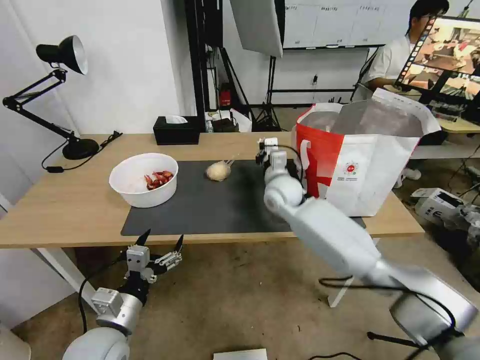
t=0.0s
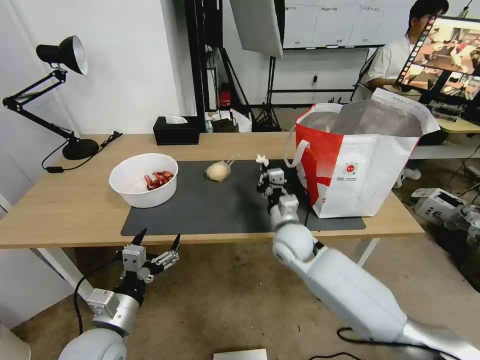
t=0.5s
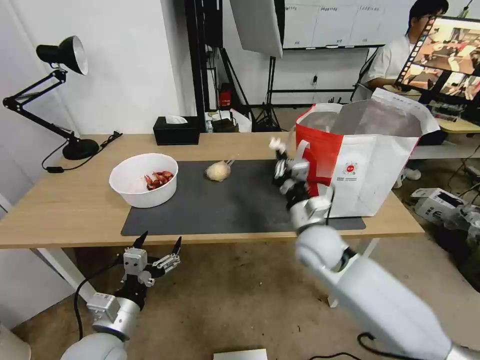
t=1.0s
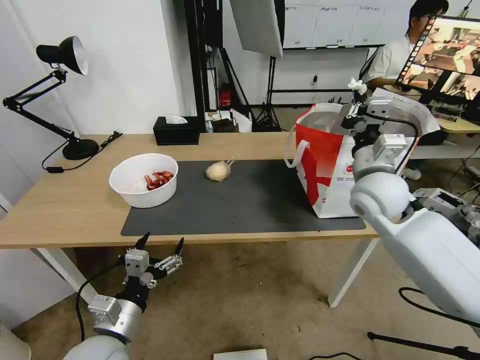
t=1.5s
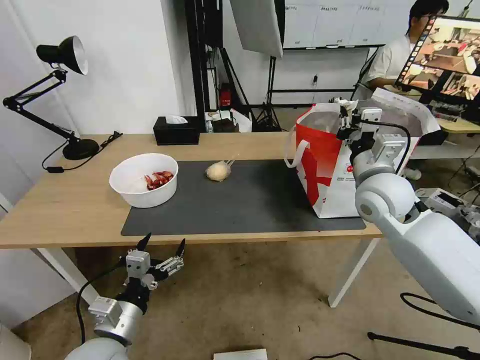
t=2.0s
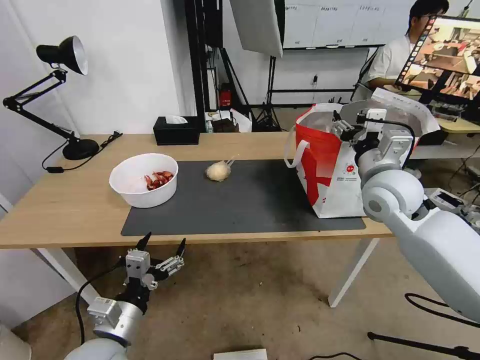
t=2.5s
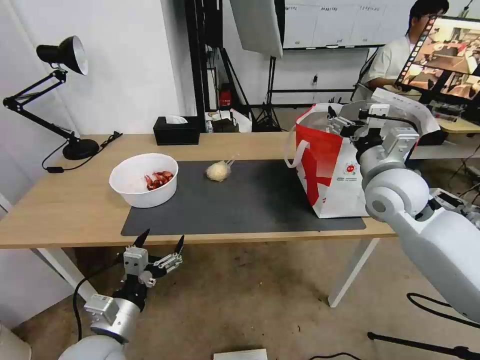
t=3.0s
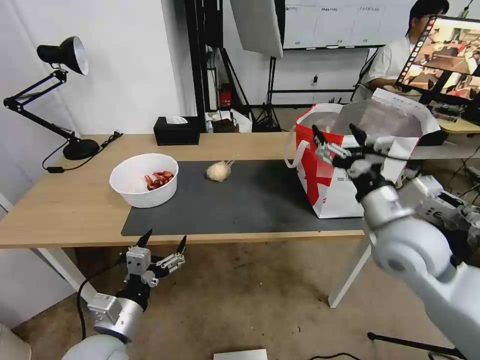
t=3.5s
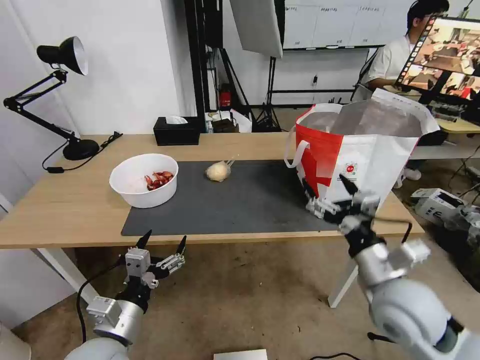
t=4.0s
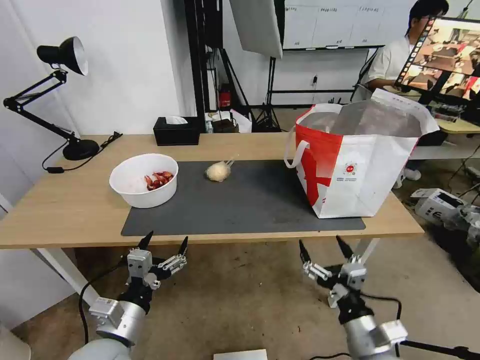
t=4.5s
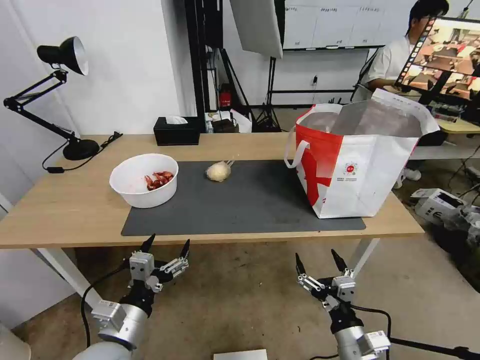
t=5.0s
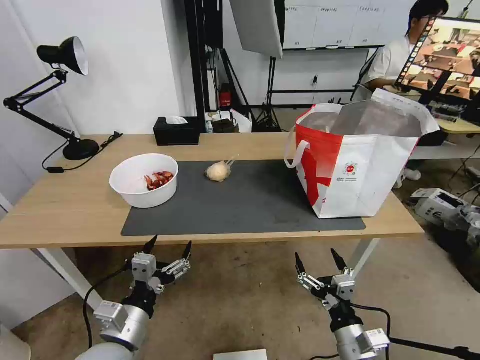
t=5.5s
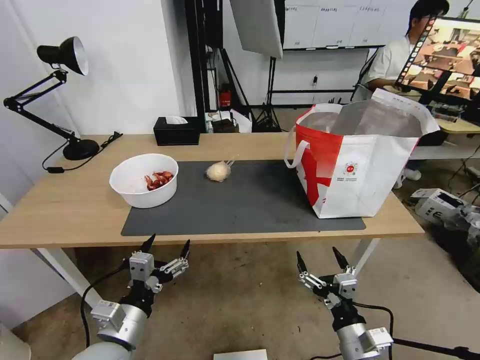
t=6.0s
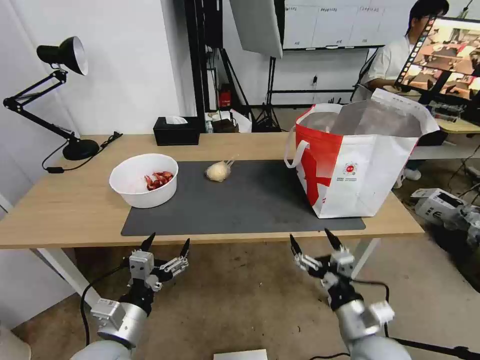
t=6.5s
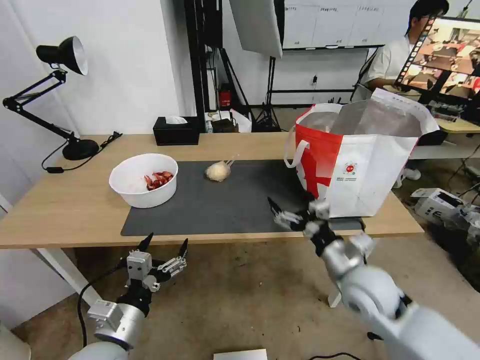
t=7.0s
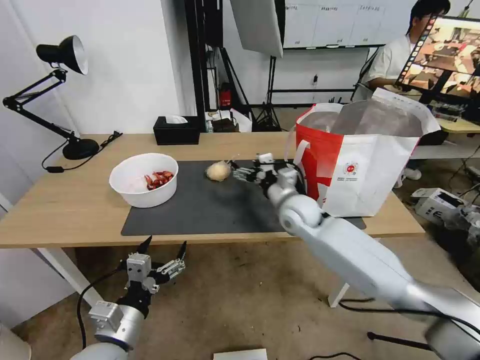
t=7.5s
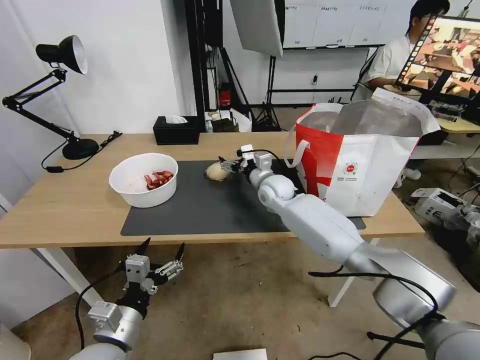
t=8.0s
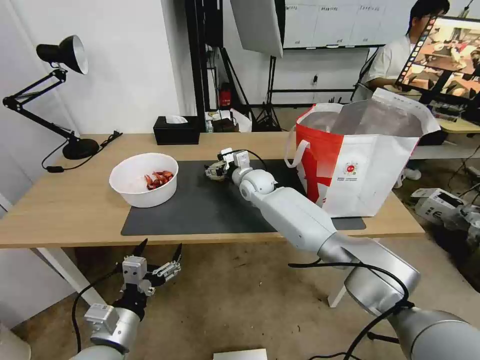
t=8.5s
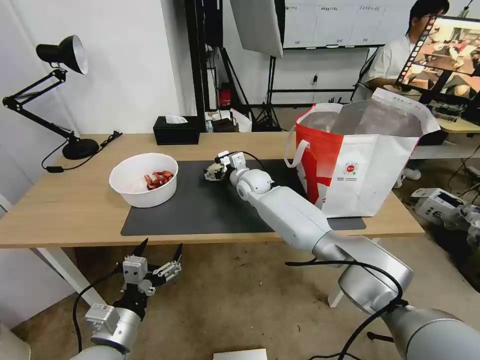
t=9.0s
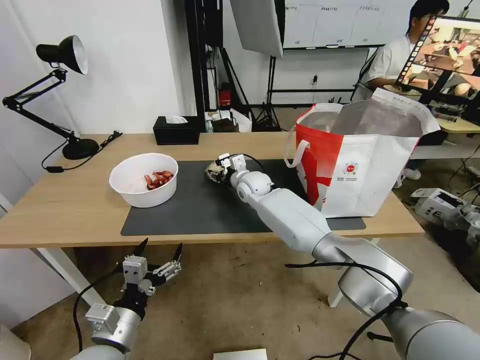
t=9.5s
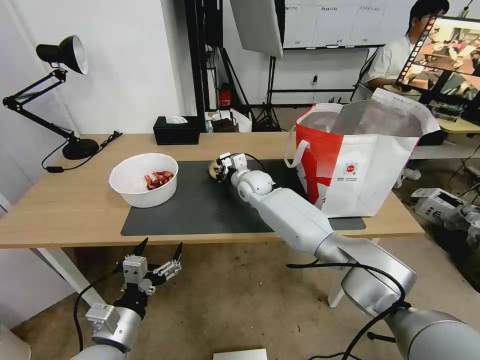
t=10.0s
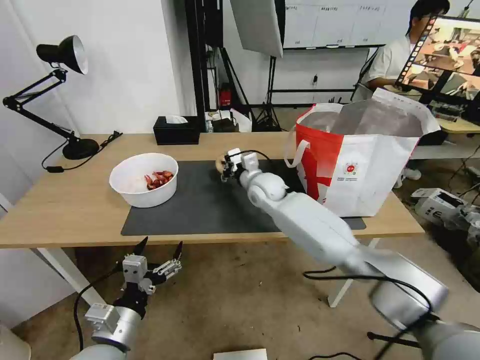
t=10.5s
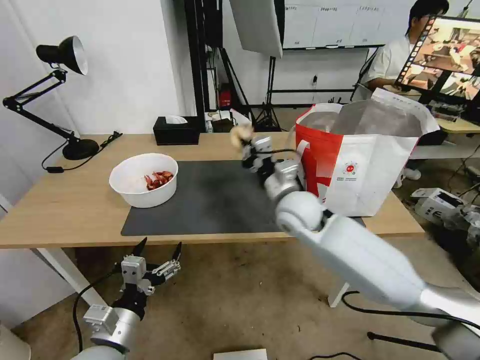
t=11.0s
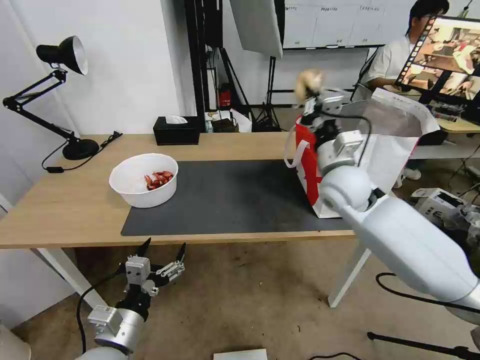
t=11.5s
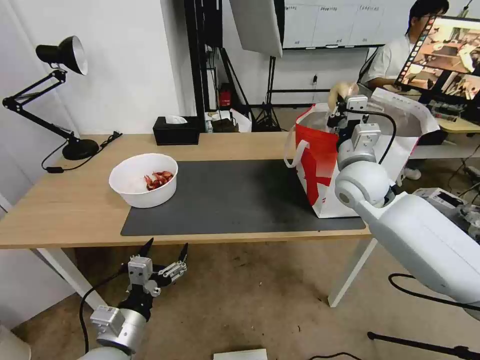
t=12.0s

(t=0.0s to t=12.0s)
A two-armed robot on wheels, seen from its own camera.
Task of the whole recording: Pick up the trash from the table and place it into the takeout bag.
t=0.0s - t=2.0s: The right gripper heads to the right, backward and upward, covering some 20 cm.
t=2.0s - t=4.0s: The right gripper moves backward and downward, roughly 20 cm, and opens up.
t=4.0s - t=6.0s: The right gripper goes some 15 cm downward and backward.
t=6.0s - t=8.0s: The right gripper moves forward, about 40 cm.
t=8.0s - t=10.0s: The right gripper ends up about 5 cm from where it was, and closes.
t=10.0s - t=12.0s: The right gripper moves to the right, backward and upward, roughly 25 cm.

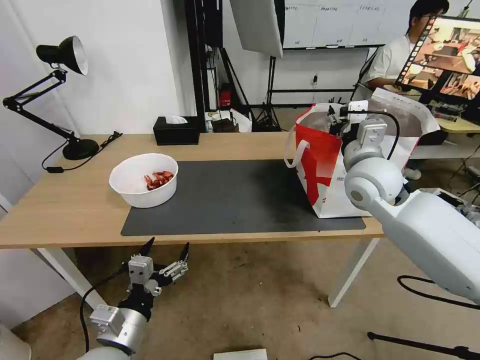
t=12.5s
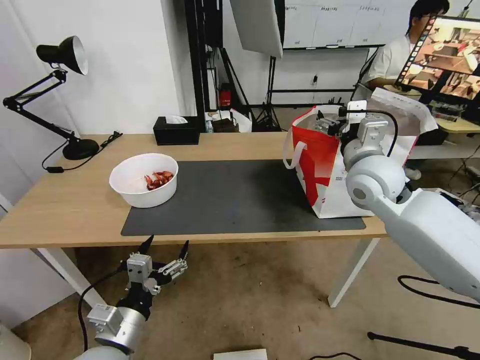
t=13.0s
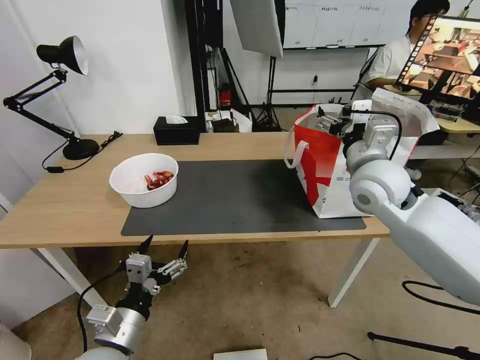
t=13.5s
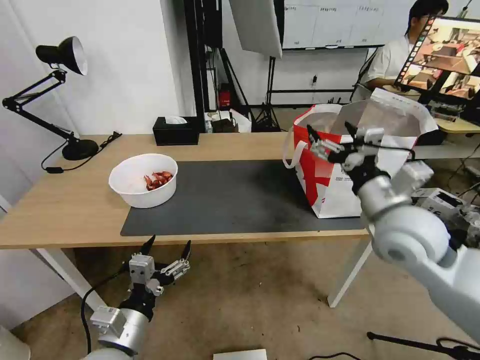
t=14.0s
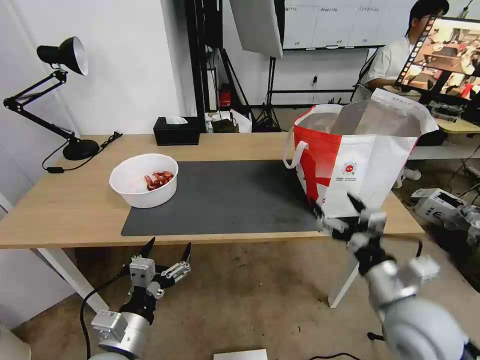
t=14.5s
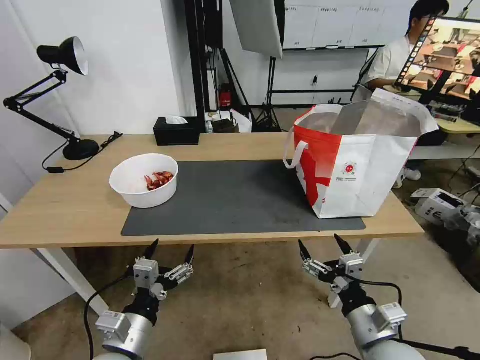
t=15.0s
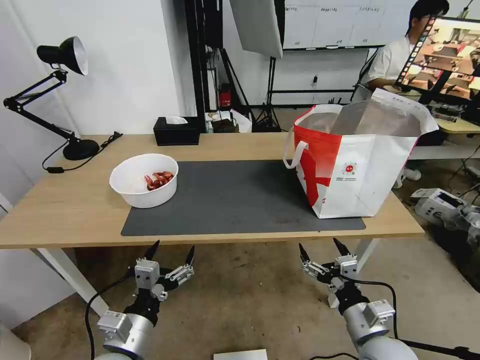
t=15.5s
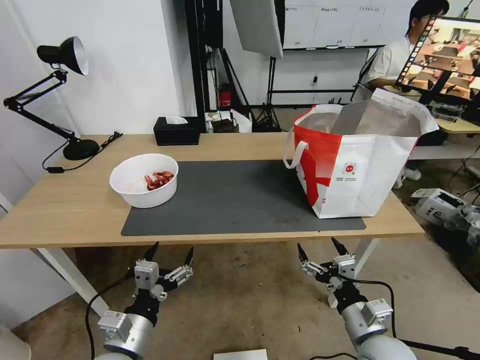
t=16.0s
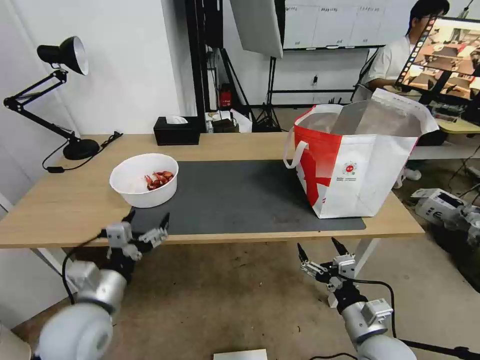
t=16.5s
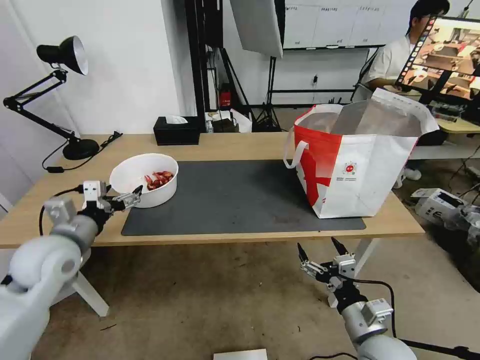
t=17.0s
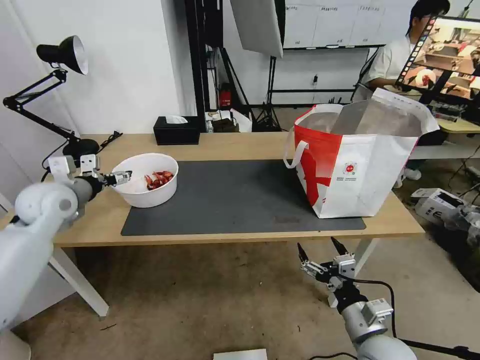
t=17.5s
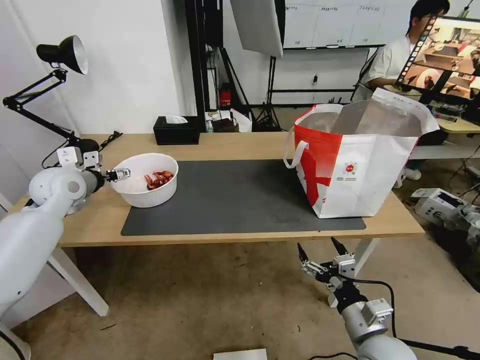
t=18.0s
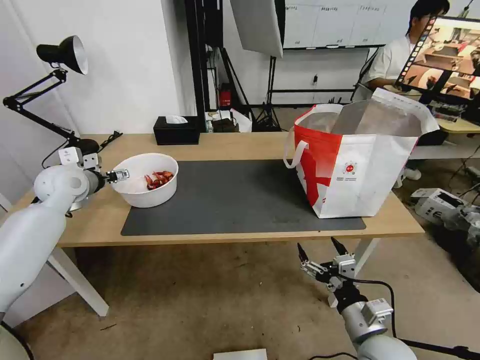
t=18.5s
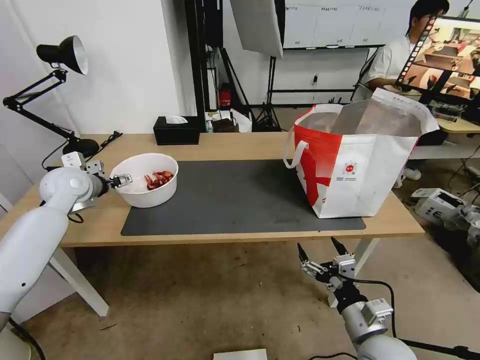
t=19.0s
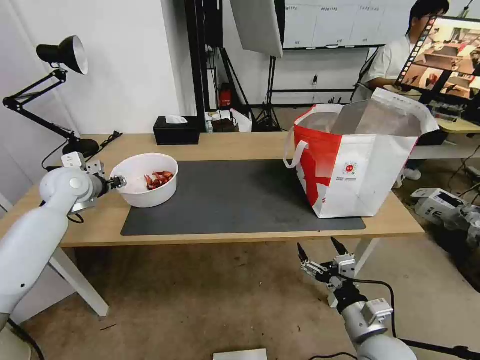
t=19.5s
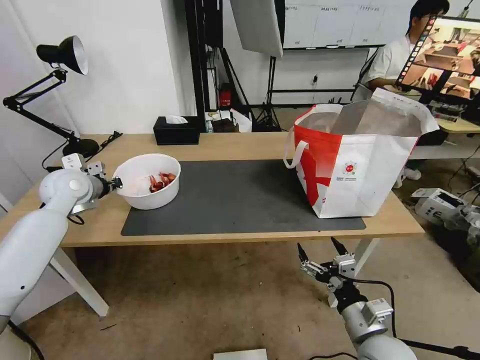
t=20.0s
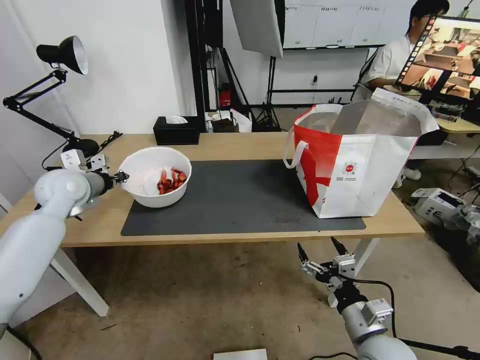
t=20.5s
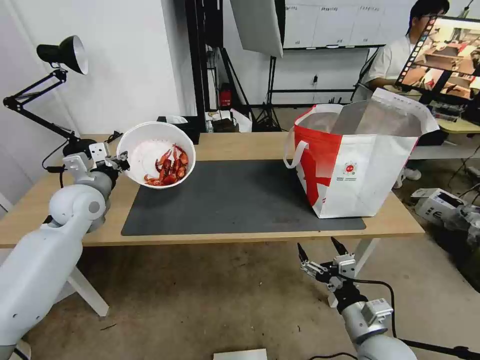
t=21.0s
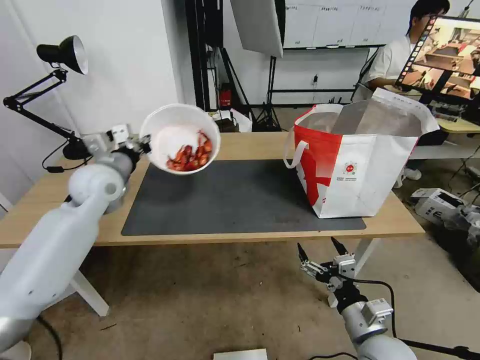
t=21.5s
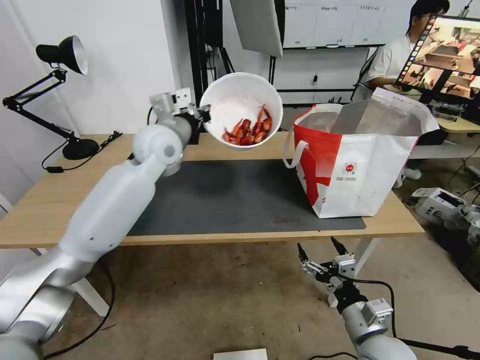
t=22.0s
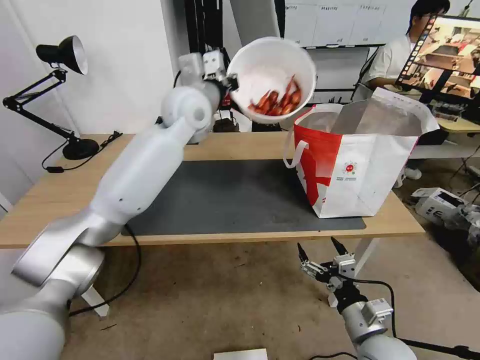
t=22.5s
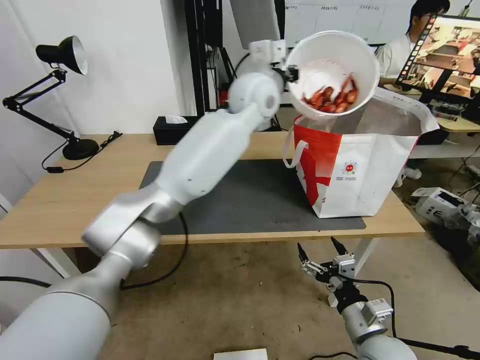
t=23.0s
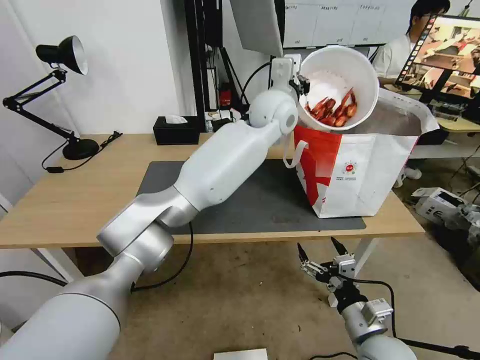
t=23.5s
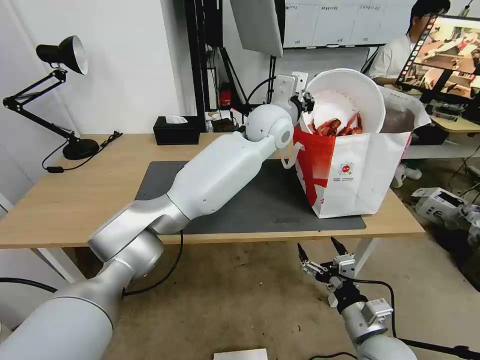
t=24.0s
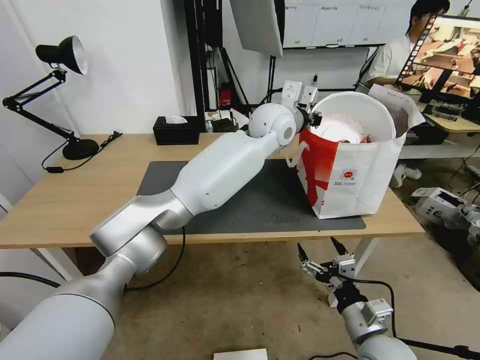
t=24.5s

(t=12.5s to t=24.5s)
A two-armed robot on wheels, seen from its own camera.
Task of the whole recording: Pick up the trash from the table and place it into the takeout bag.
t=12.5s - t=14.5s: The right gripper shifts roughly 25 cm backward and downward, and opens up.
t=14.5s - t=16.5s: The right gripper travels downward by about 10 cm; the left gripper travels forward and to the left by roughly 10 cm.
t=16.5s - t=18.5s: The left gripper moves forward and to the left, roughly 30 cm.
t=18.5s - t=20.5s: The left gripper closes.
t=20.5s - t=22.5s: The left gripper shifts roughly 30 cm to the right and upward.
t=22.5s - t=24.5s: The left gripper shifts roughly 15 cm to the right.

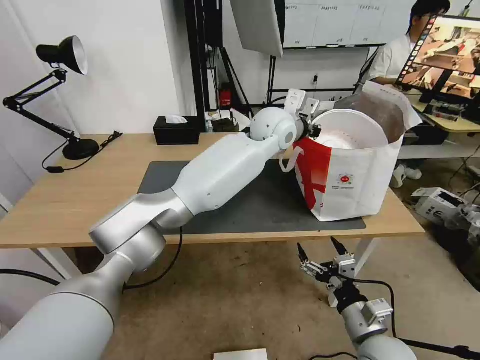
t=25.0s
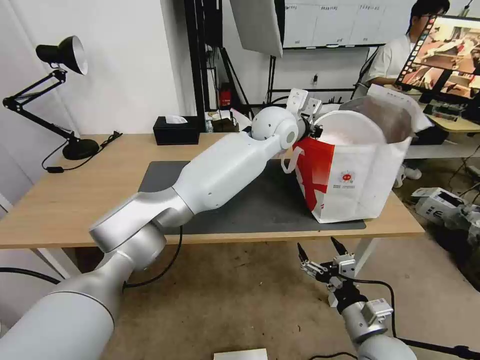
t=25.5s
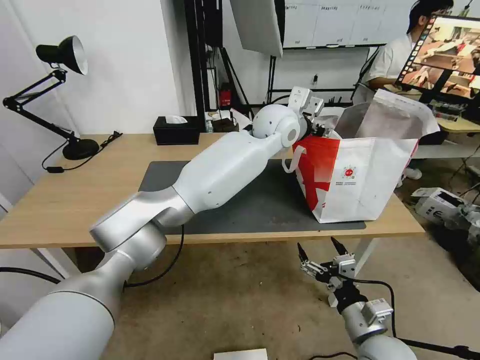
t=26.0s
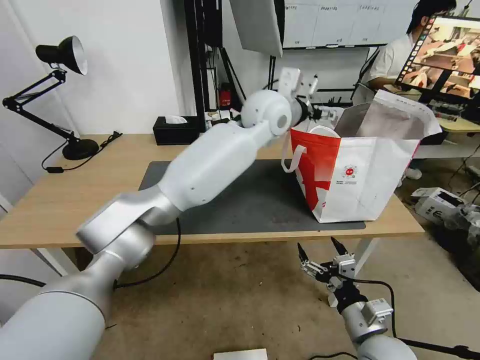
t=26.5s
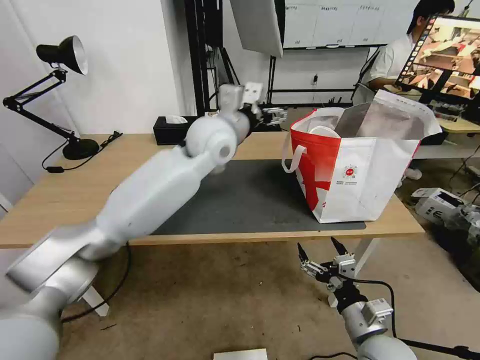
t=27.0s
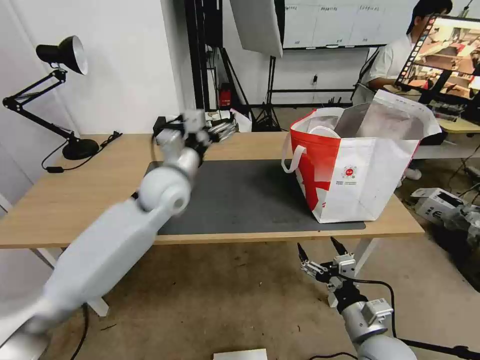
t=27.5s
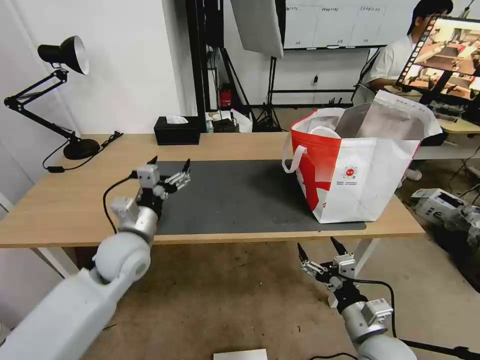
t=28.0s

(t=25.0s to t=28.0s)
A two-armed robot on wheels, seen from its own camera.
Task of the whole recording: Pick up the trash from the table and place it into the takeout bag.
t=25.0s - t=26.5s: The left gripper shifts by roughly 5 cm, and opens up.
t=26.5s - t=28.0s: The left gripper travels to the left, downward and backward by roughly 40 cm.
